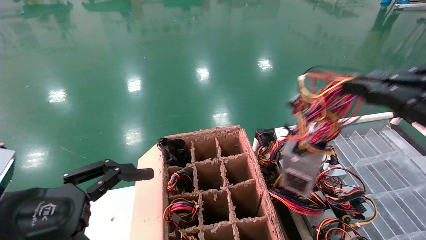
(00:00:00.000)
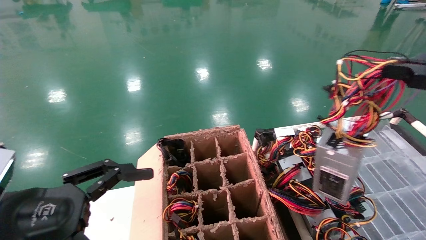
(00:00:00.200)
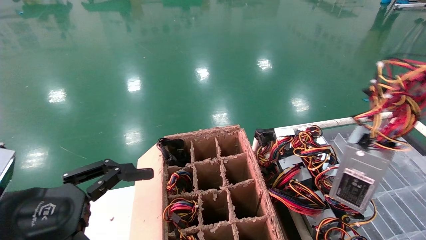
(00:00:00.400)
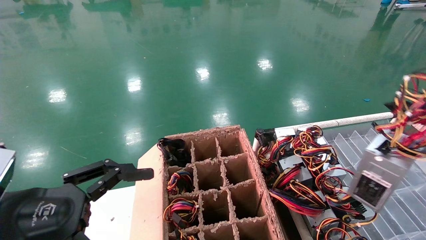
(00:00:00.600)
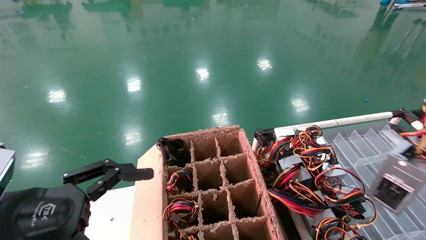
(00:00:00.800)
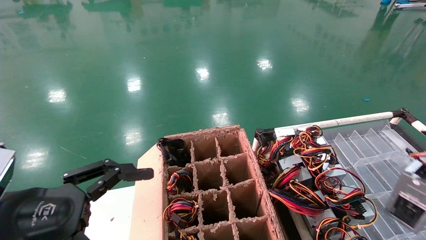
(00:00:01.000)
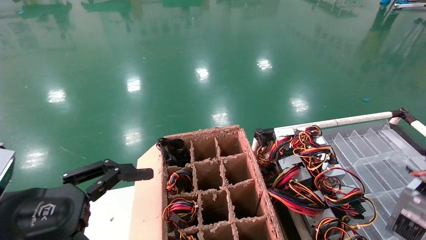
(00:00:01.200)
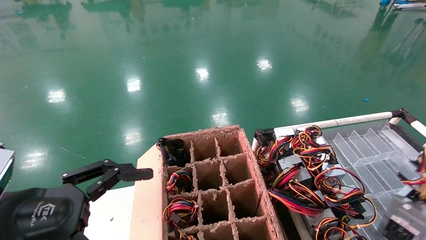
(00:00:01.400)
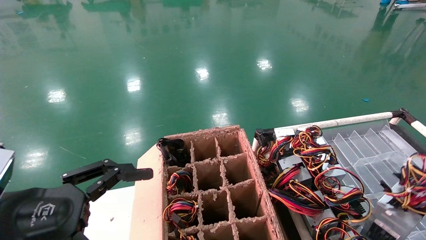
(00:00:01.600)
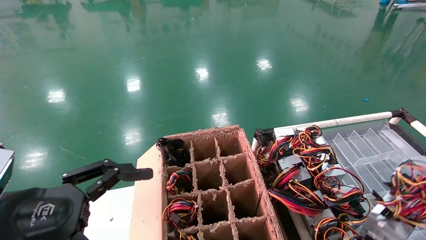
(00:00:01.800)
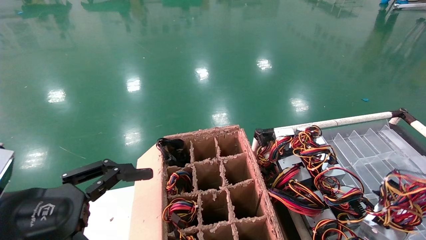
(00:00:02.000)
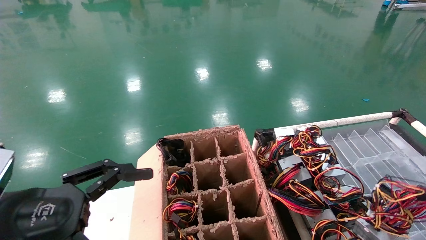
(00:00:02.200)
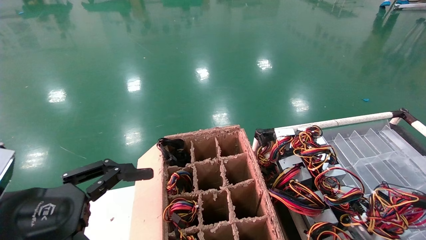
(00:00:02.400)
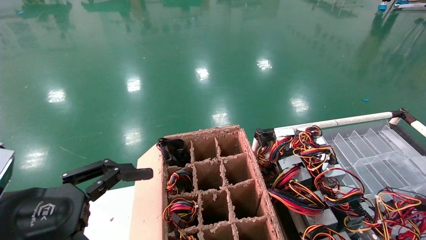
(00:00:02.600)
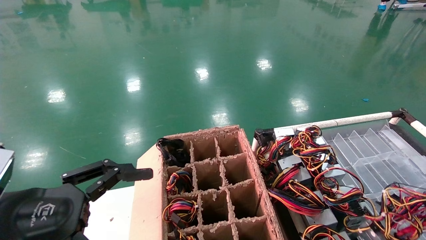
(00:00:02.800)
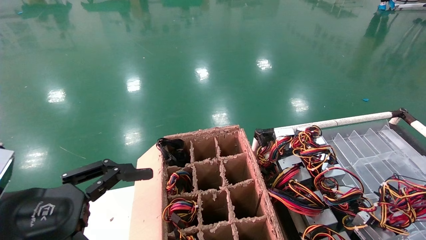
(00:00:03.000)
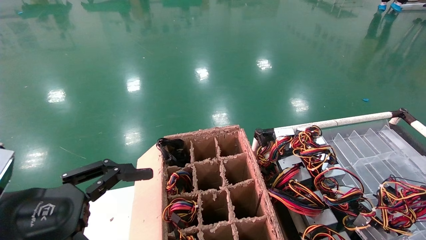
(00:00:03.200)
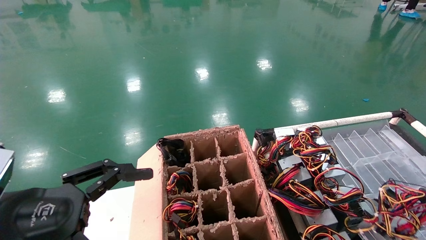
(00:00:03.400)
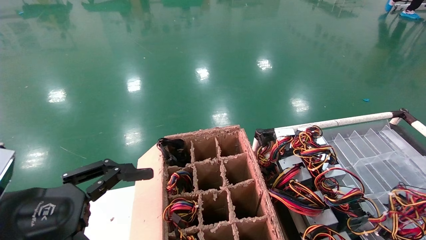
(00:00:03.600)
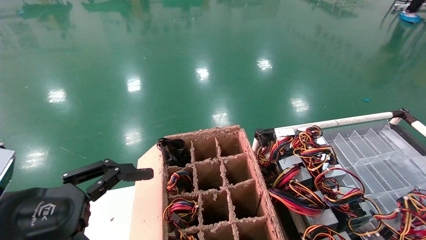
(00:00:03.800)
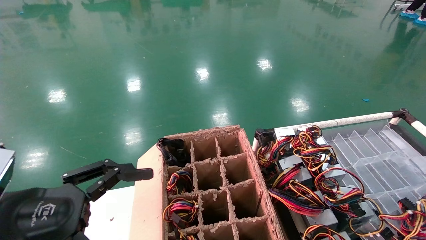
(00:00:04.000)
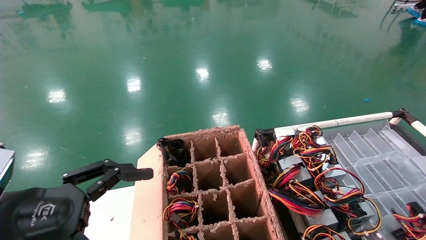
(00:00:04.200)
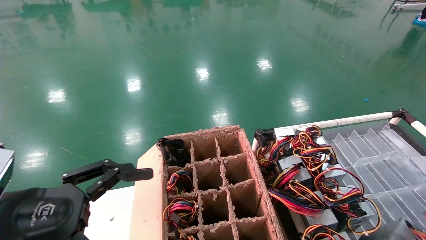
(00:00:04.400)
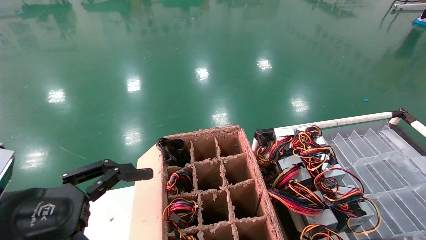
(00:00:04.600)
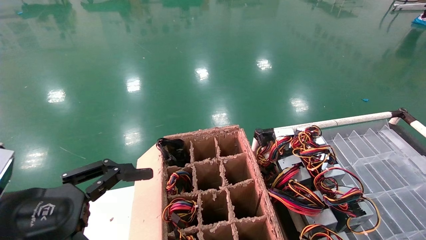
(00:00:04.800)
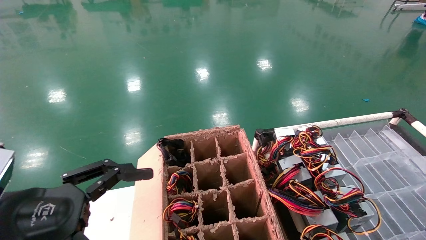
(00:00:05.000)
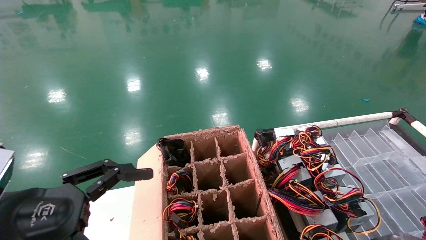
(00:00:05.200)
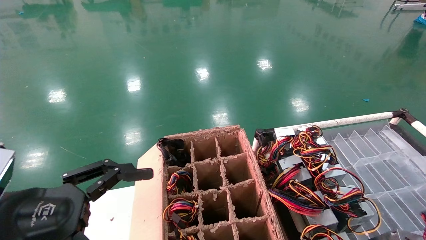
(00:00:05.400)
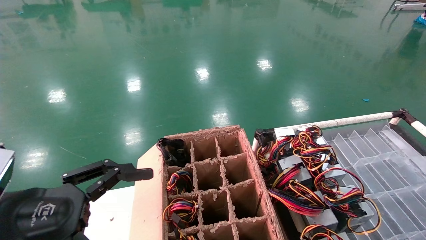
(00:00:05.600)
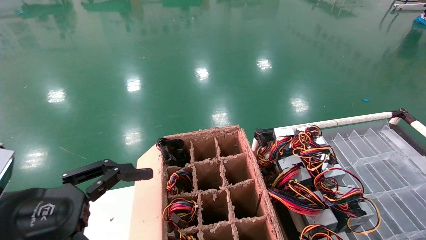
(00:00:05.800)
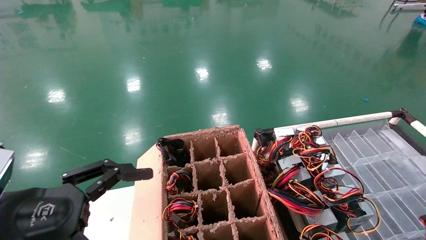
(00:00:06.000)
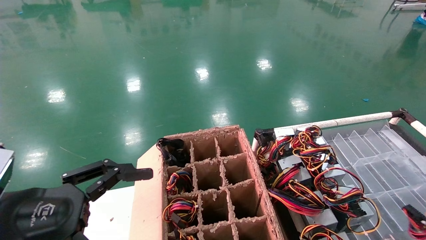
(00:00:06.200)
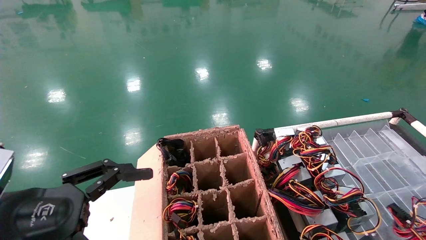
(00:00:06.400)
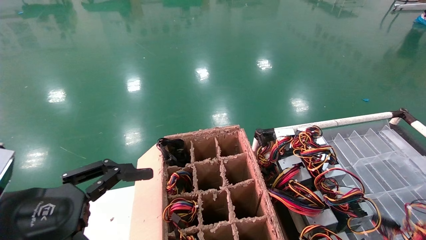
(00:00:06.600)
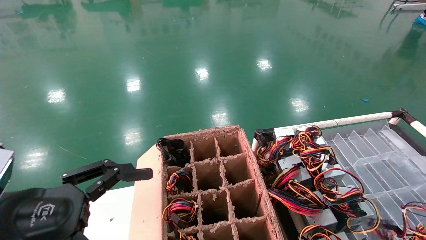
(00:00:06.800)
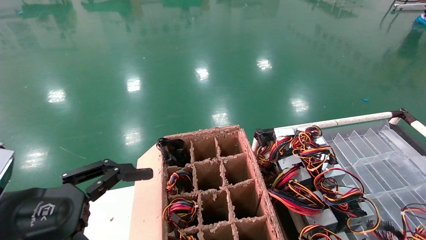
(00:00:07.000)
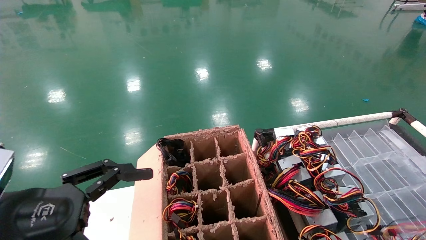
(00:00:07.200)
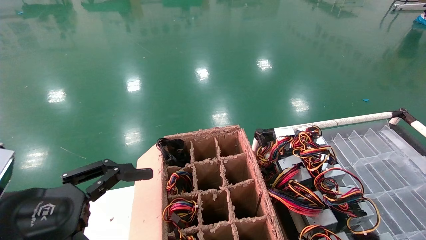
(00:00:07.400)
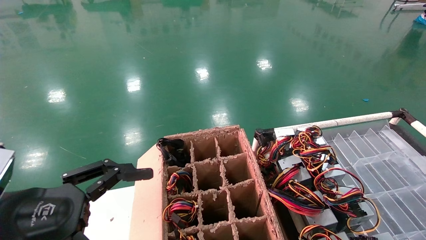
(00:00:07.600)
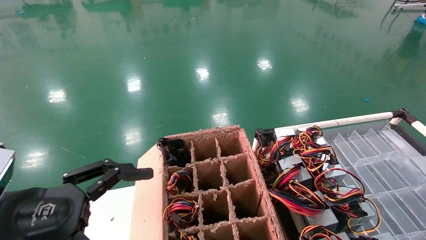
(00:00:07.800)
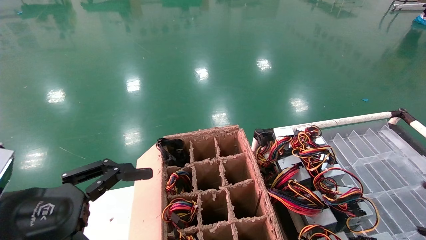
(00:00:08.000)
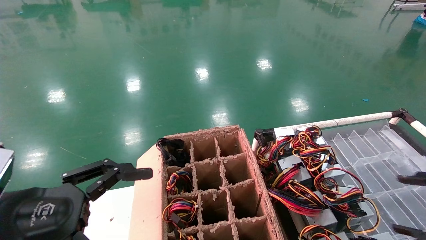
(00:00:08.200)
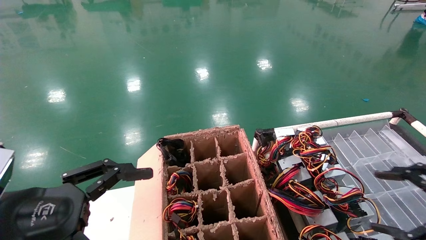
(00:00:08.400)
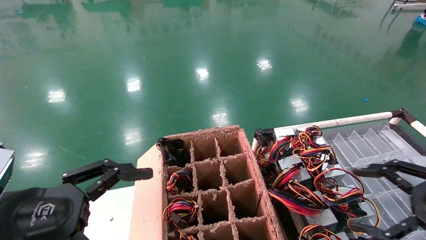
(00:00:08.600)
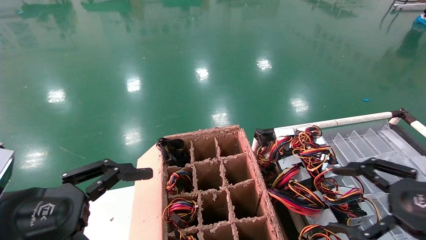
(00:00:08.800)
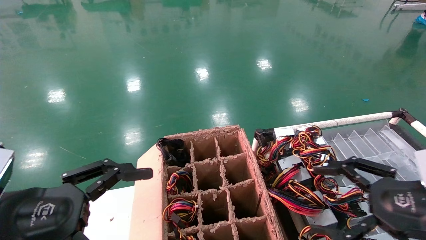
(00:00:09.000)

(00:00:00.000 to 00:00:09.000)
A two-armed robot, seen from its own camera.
Step, 00:00:00.000 - 00:00:07.200: Place the power supply on the operating table.
00:00:00.000 - 00:00:01.600: The right gripper travels to the right and downward by roughly 15 cm.
00:00:01.600 - 00:00:03.000: The grippers stay close to where they were, moving slightly.
00:00:03.000 - 00:00:04.400: The right gripper moves backward and to the right, roughly 10 cm.
00:00:04.400 - 00:00:06.000: There are only small adjustments of the grippers.
00:00:07.600 - 00:00:09.000: The right gripper shifts roughly 20 cm to the left and forward, and opens.
